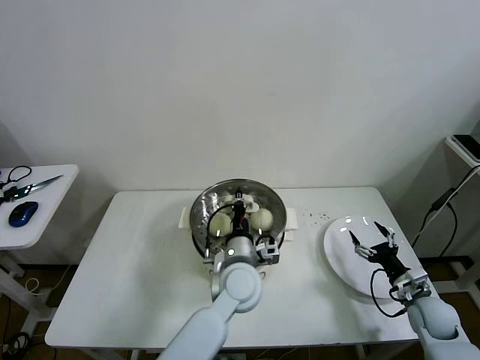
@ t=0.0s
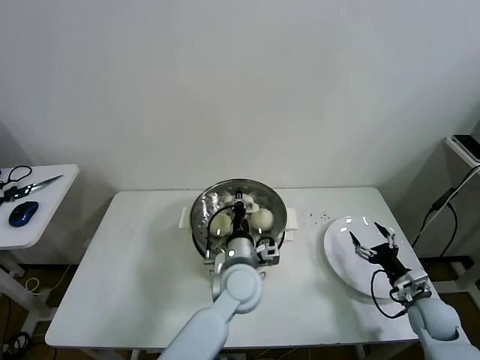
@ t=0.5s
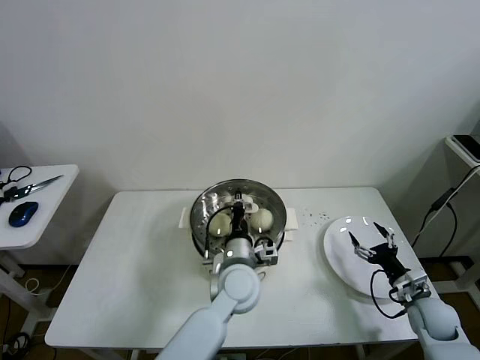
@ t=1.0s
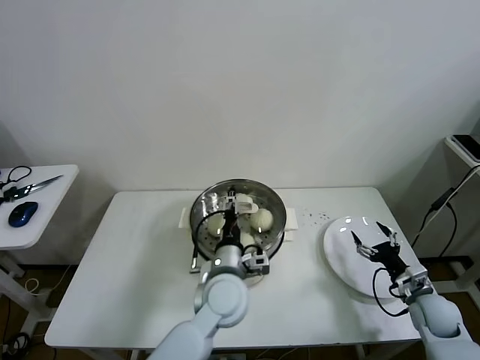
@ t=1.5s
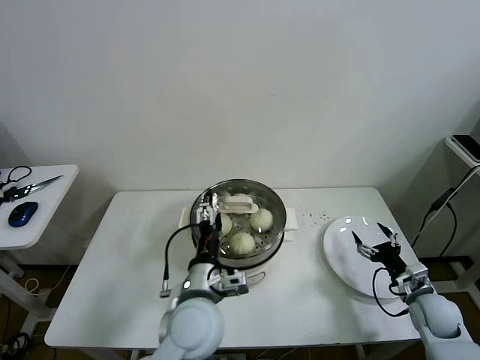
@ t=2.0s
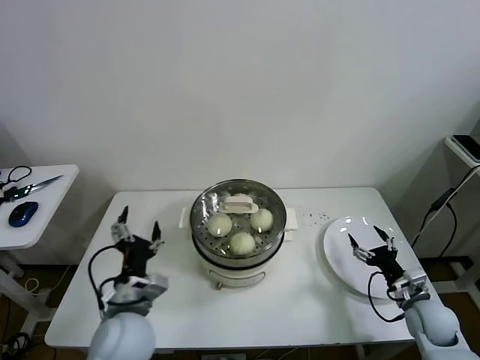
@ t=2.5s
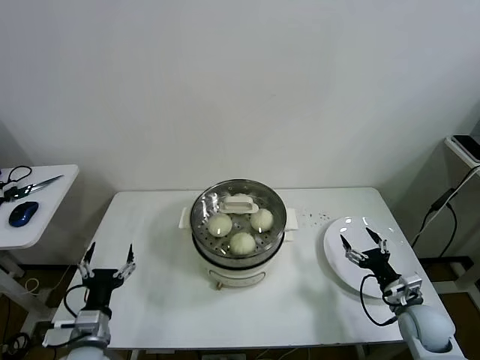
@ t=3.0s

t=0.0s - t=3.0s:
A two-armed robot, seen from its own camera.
Task of the whole recording: take steamed baozi put them in steamer then cover it.
t=0.0s - t=1.5s: The left gripper opens its fingers.
t=1.5s - t=3.0s: The left gripper moves to the left and backward, roughly 30 cm, and opens up.
